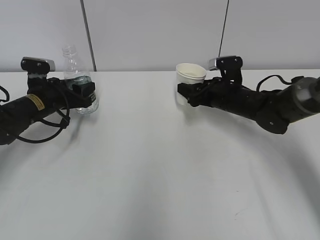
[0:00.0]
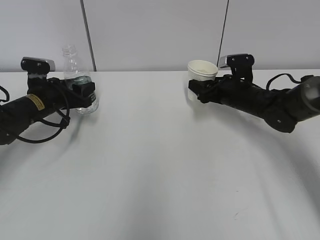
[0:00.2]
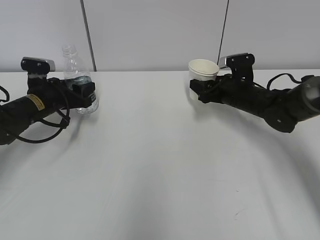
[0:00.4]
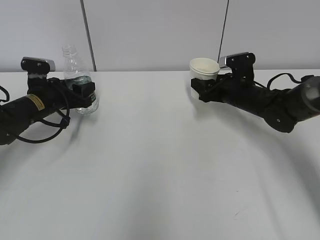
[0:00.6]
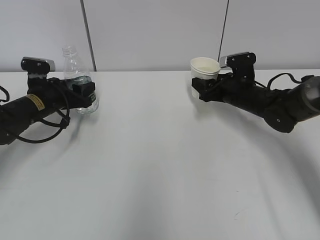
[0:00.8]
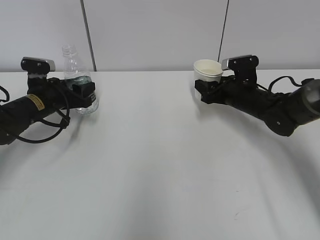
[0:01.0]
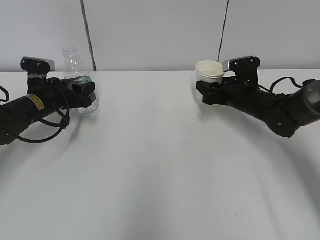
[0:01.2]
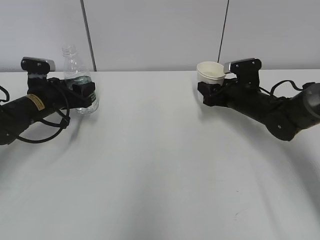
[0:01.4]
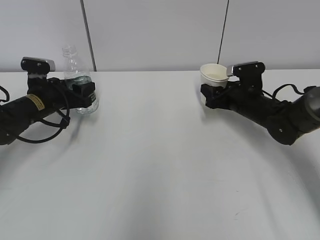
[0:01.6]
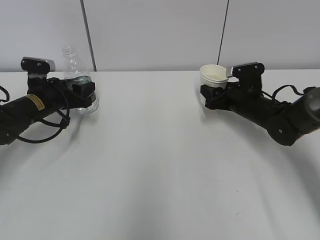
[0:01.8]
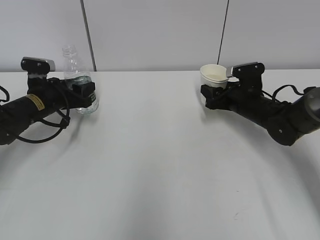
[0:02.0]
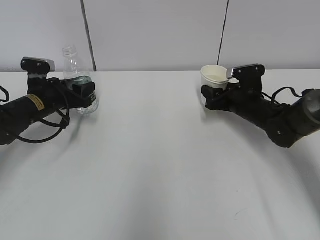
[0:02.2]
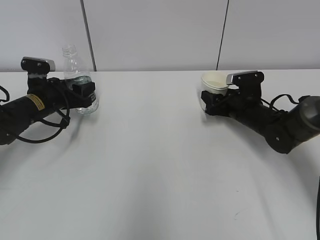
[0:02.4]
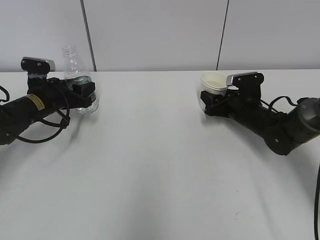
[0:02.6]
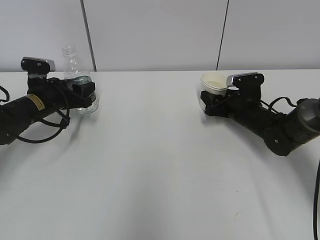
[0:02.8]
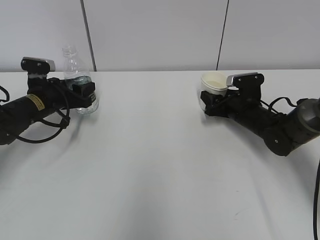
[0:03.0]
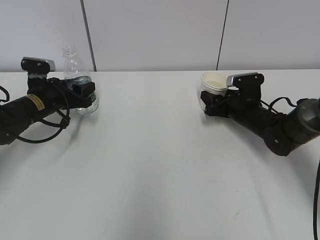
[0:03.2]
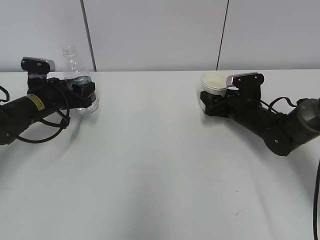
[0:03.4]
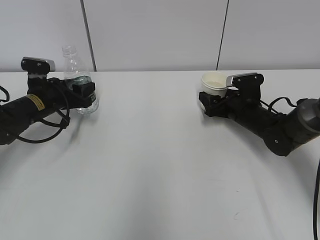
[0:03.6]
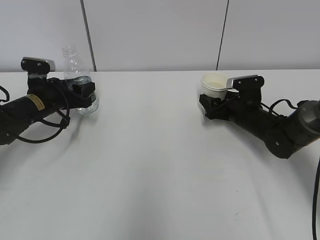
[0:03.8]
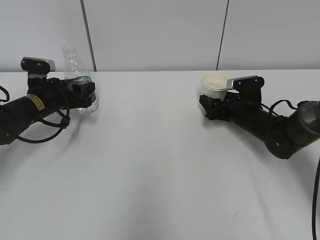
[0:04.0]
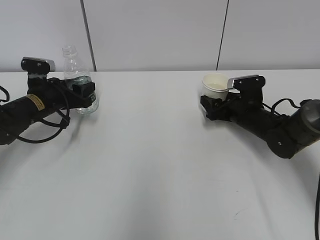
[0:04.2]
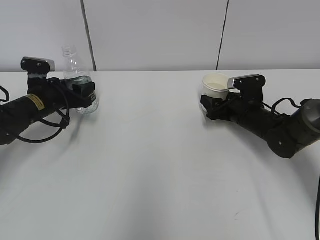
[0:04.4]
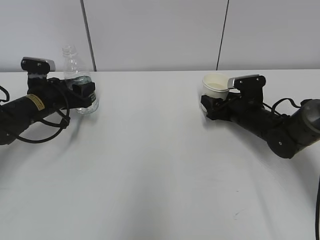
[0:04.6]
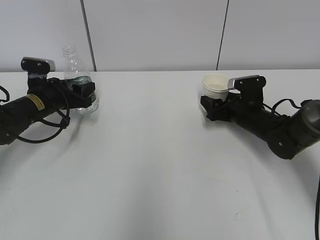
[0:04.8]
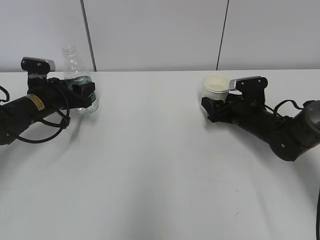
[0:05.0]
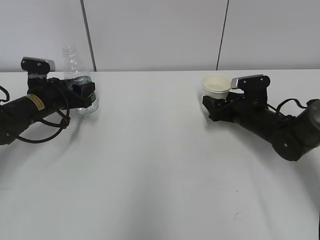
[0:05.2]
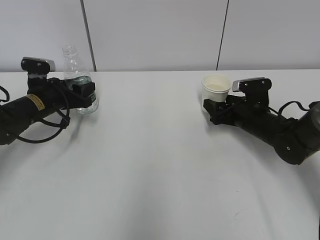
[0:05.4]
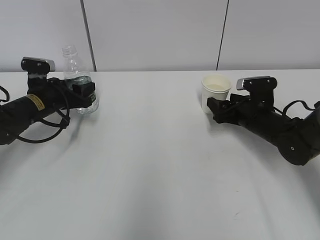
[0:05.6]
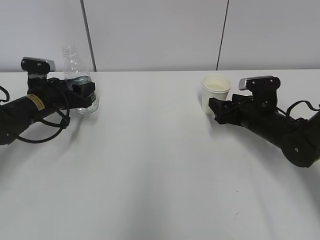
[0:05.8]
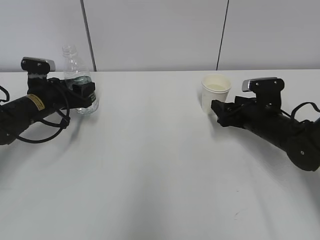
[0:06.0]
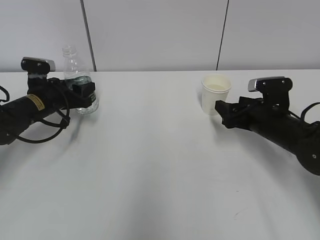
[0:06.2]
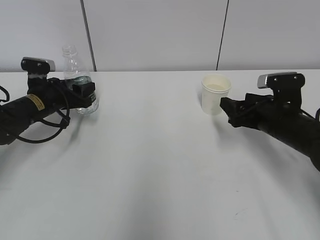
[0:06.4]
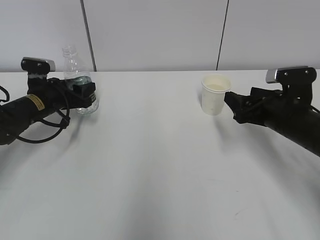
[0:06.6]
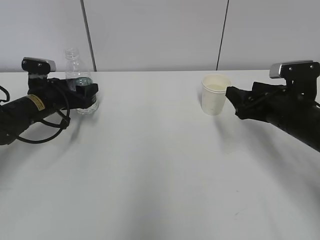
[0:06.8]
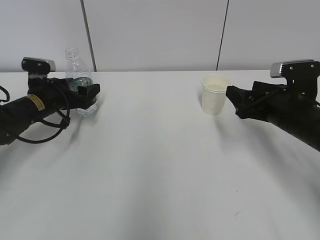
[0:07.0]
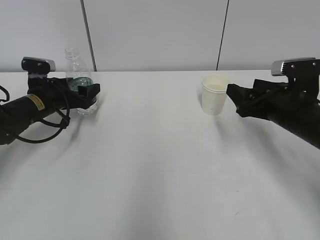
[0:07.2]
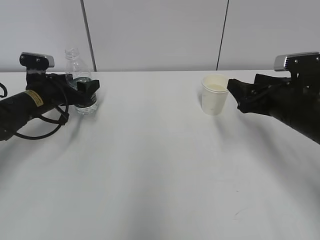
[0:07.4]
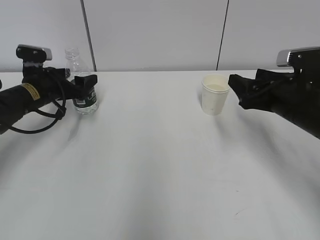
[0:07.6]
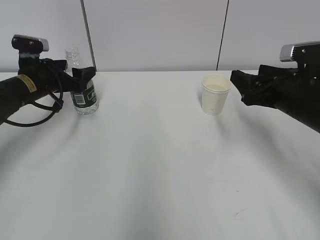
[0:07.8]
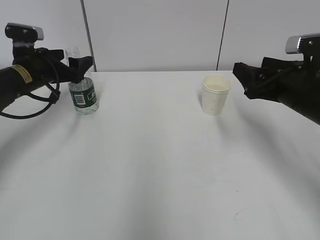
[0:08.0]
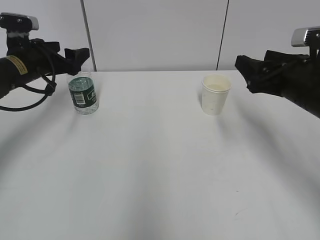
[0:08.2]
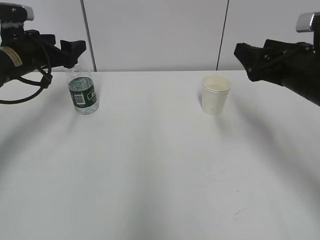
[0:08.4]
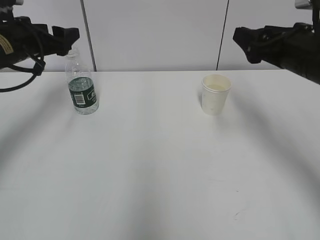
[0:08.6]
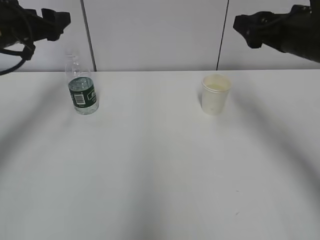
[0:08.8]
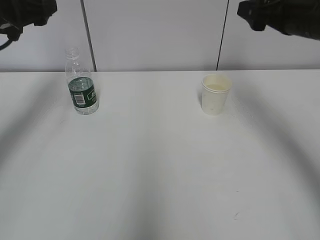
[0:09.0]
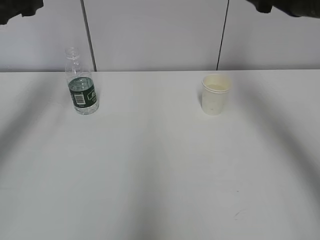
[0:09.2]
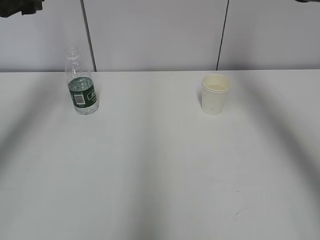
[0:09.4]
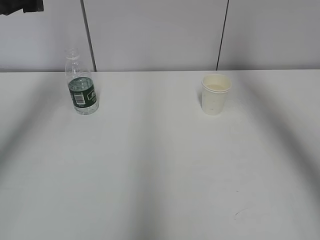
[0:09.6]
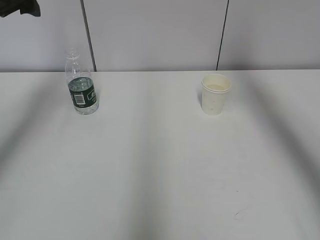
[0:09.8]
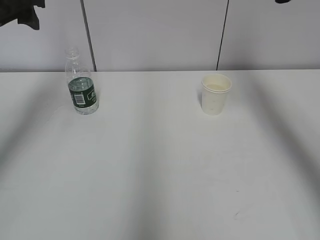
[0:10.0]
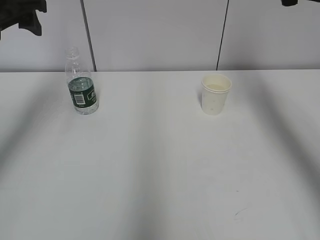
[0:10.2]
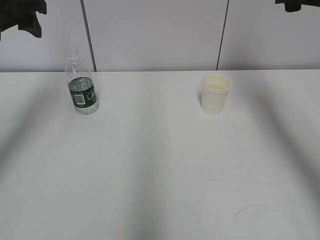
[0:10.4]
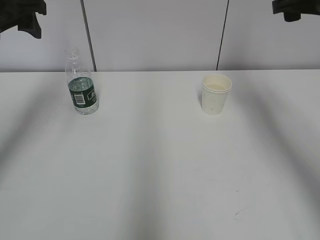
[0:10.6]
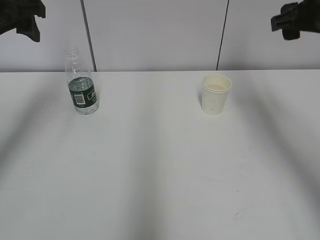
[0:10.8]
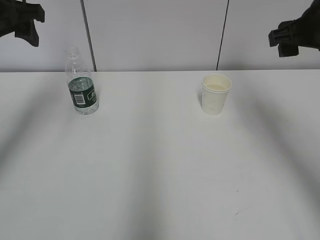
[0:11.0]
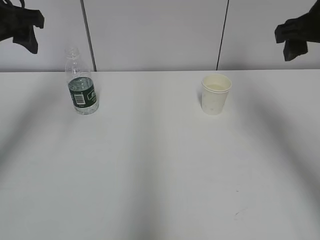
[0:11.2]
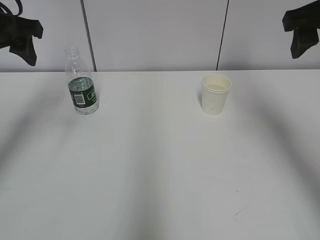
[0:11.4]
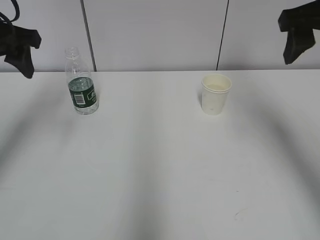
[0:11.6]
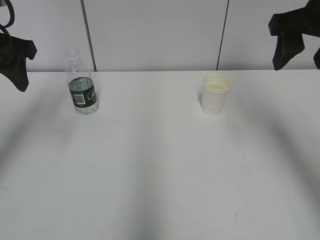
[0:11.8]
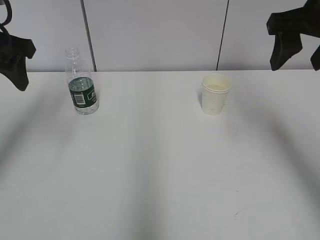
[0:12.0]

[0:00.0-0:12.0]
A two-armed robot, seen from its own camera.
0:00.0 to 0:03.0: The grippers stay close to where they were, moving slightly.
0:03.0 to 0:04.4: The right gripper opens up.
0:04.4 to 0:06.0: The right gripper shifts by about 5 cm.
0:06.0 to 0:07.6: The right gripper moves upward and backward, about 10 cm; the left gripper opens its fingers.
0:07.6 to 0:09.0: Both grippers move upward, roughly 15 cm.
0:09.0 to 0:10.4: Both grippers move upward, about 5 cm.
0:10.4 to 0:12.0: The right gripper shifts about 5 cm backward.

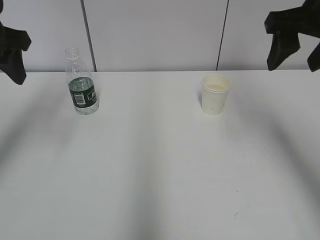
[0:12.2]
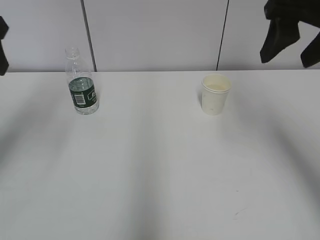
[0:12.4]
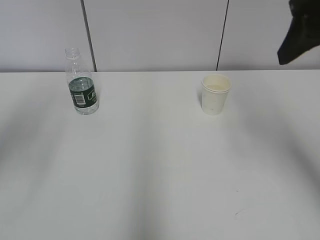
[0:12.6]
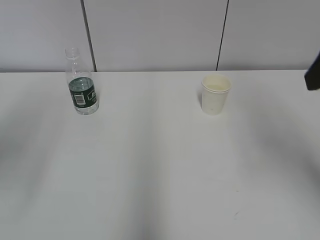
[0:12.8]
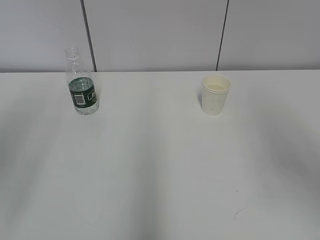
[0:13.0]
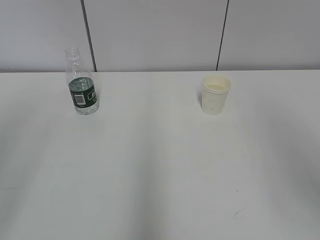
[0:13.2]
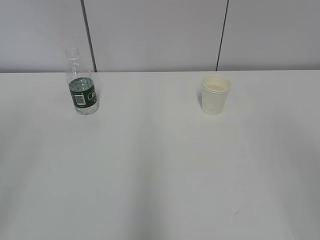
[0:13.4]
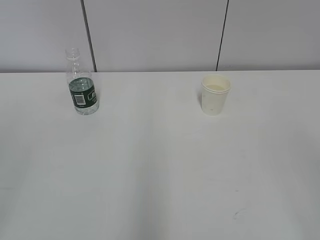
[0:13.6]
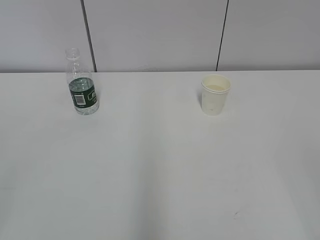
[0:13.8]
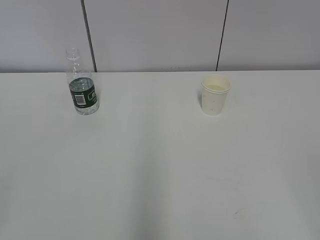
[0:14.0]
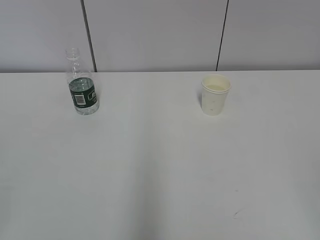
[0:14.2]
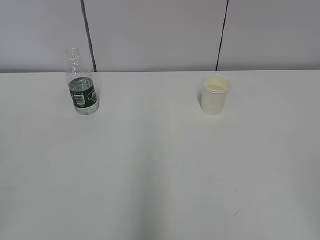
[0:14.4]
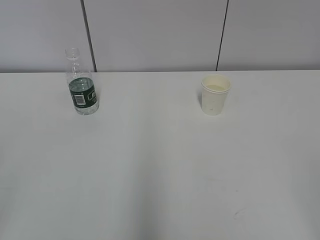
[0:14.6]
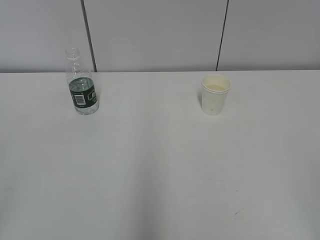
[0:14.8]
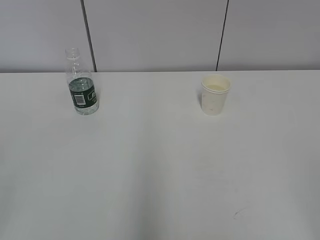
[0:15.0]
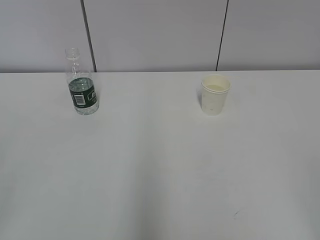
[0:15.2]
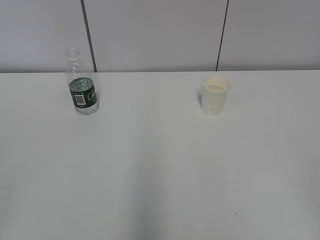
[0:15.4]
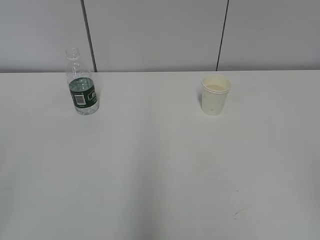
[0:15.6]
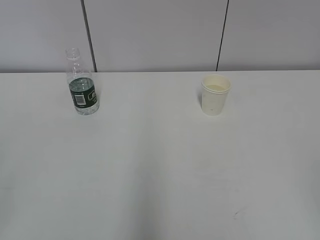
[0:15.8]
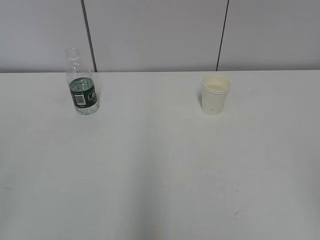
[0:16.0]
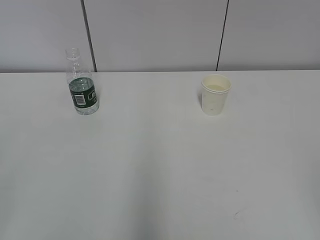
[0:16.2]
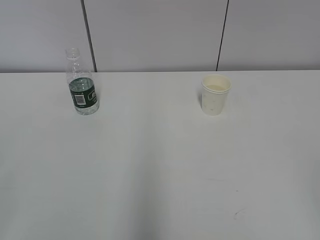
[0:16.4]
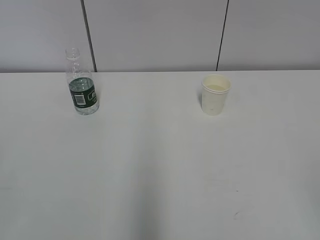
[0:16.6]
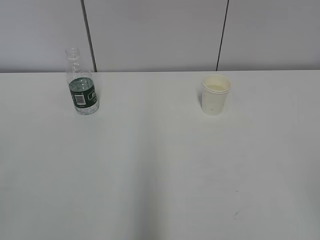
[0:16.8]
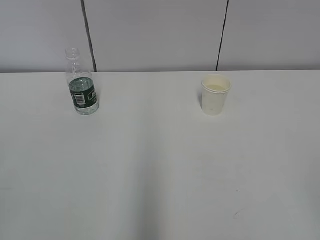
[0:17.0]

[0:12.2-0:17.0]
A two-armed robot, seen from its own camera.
0:12.2 to 0:13.8: Both grippers travel together backward, about 35 cm.
